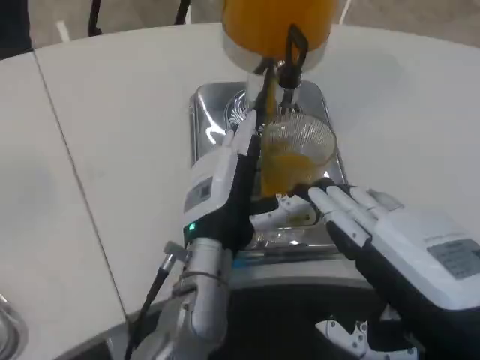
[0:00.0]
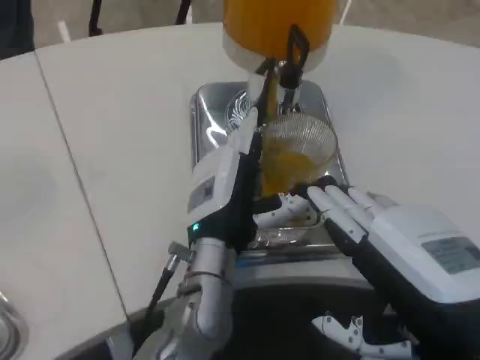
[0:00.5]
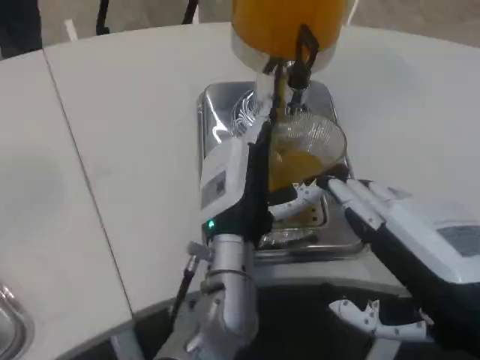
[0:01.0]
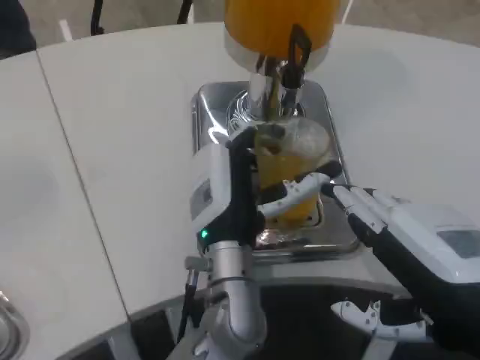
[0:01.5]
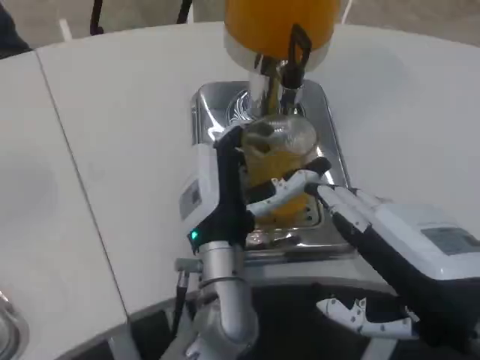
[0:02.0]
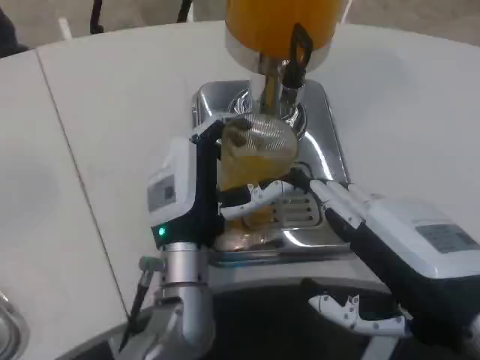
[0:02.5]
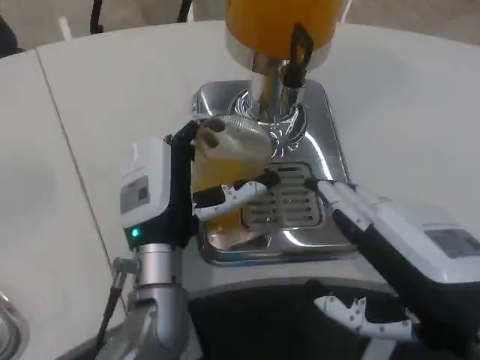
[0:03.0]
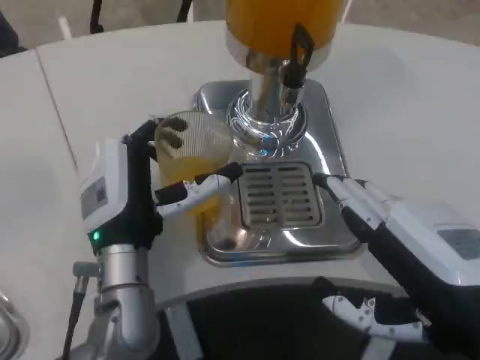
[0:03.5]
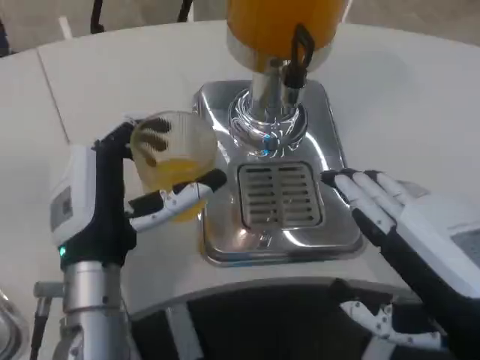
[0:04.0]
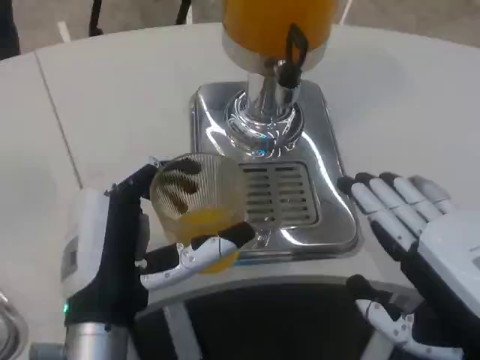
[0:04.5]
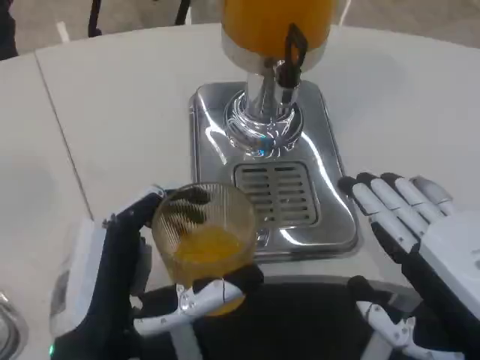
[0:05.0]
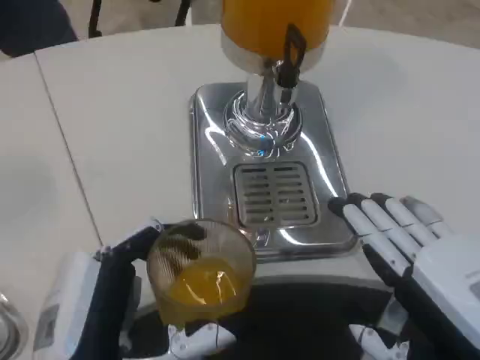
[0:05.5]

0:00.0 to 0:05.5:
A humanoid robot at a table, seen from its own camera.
Task of the whole recording: Grasp the cup under the faucet to collect the drink, then remove the cup.
0:02.0 to 0:03.5: The left hand is displaced to the left by about 10 cm.
0:03.5 to 0:05.5: The left hand moves backward, roughly 15 cm.
